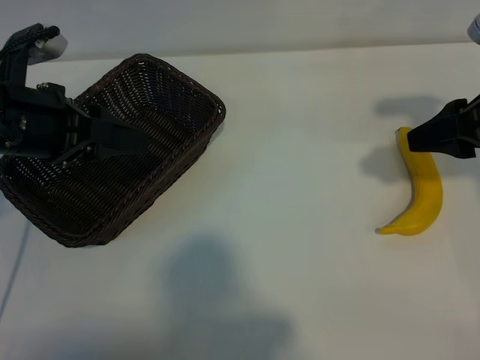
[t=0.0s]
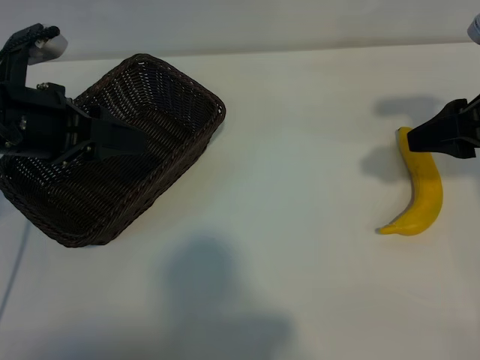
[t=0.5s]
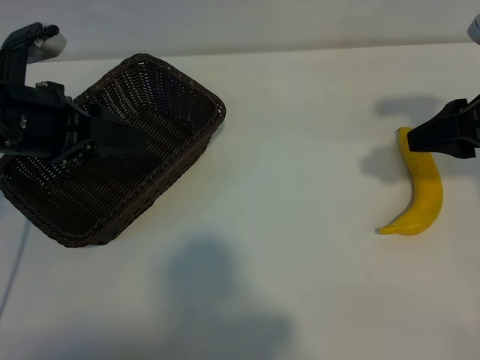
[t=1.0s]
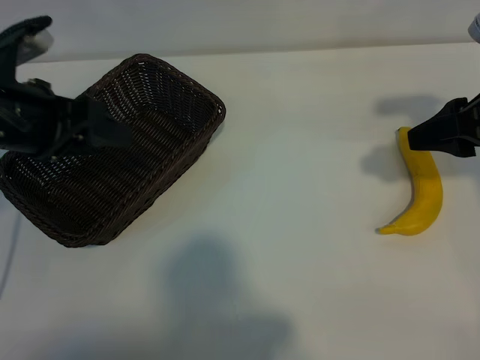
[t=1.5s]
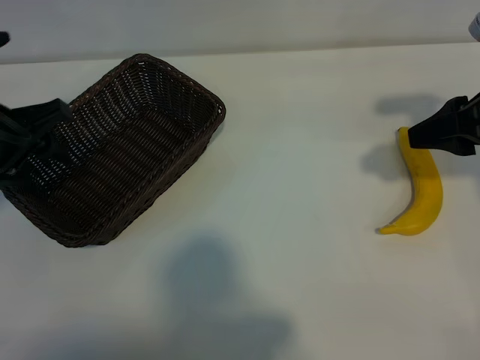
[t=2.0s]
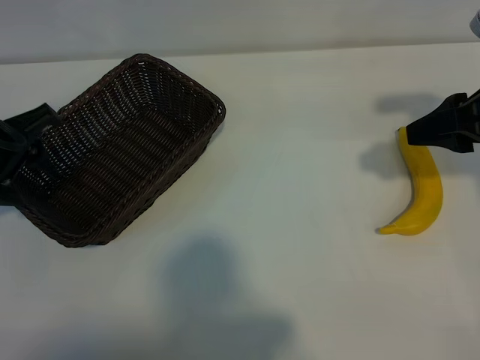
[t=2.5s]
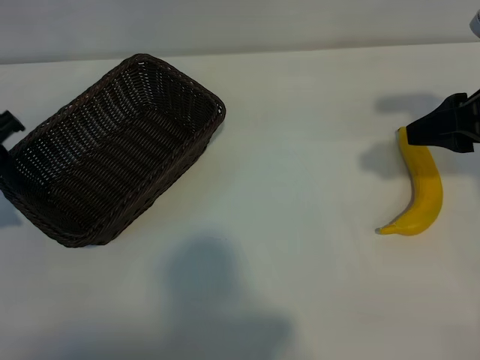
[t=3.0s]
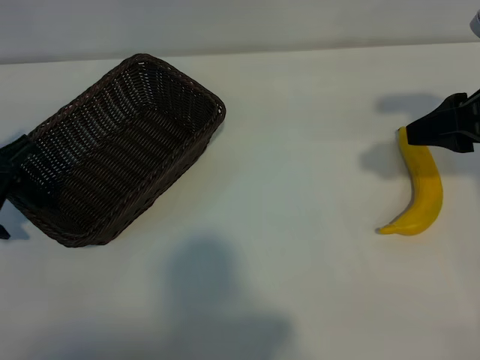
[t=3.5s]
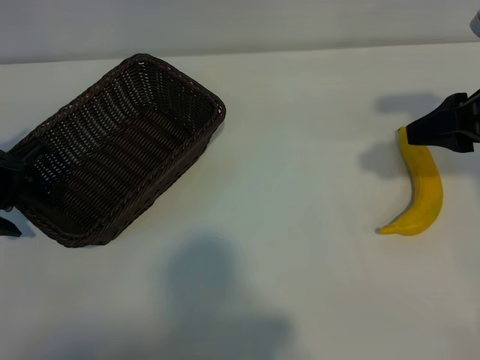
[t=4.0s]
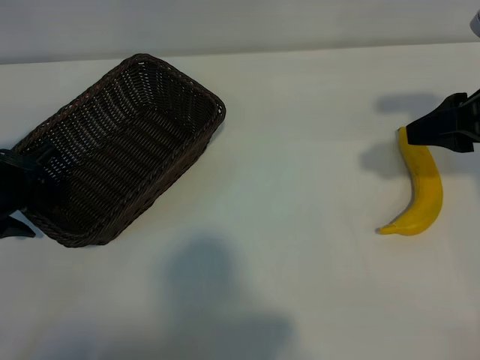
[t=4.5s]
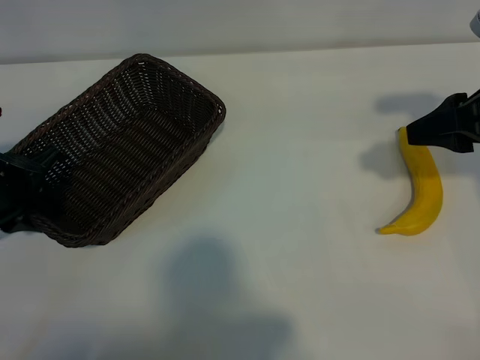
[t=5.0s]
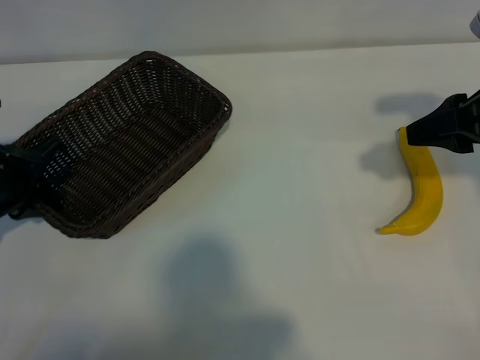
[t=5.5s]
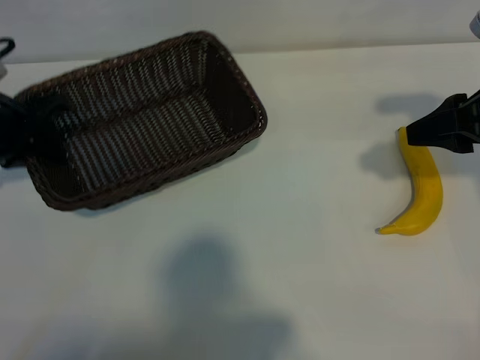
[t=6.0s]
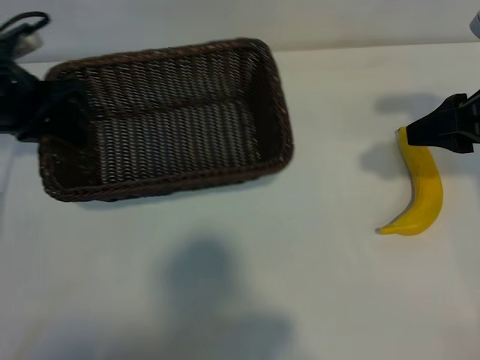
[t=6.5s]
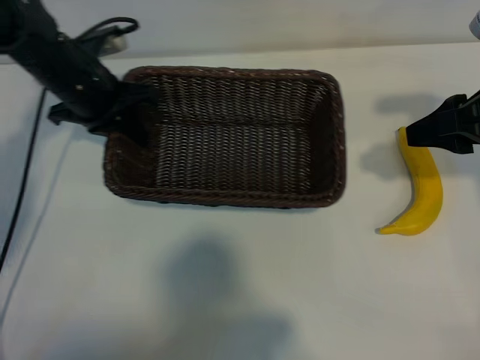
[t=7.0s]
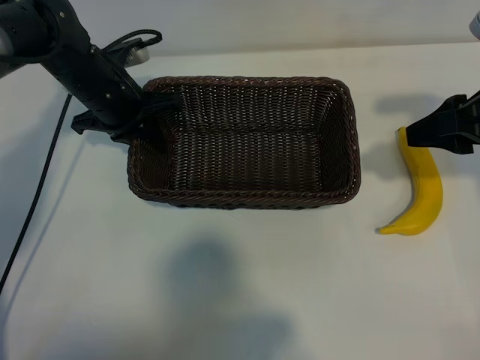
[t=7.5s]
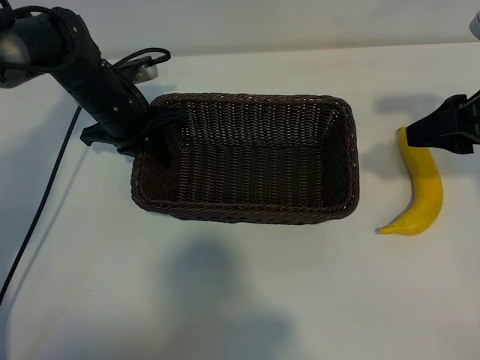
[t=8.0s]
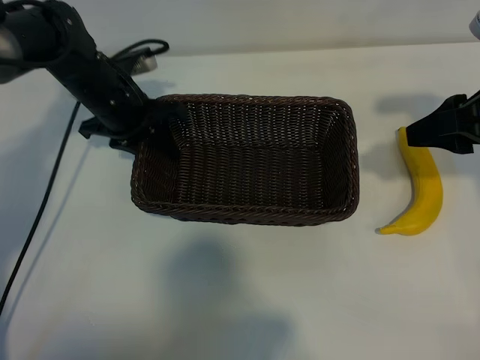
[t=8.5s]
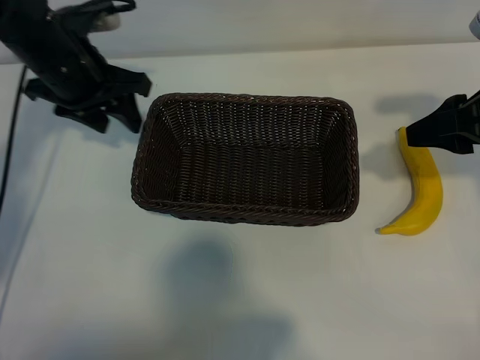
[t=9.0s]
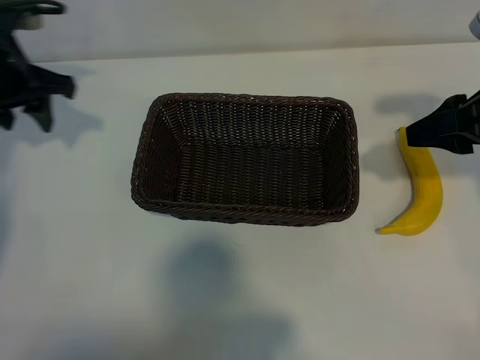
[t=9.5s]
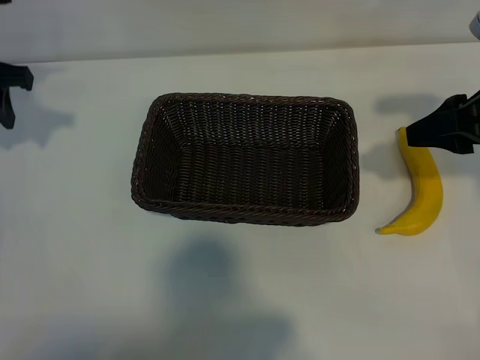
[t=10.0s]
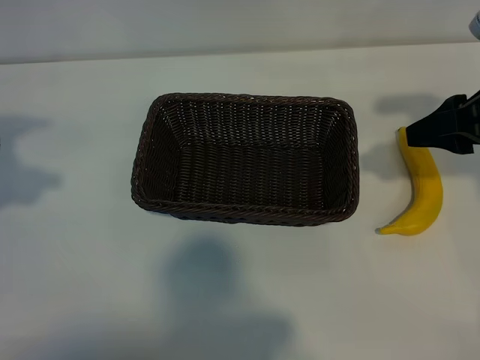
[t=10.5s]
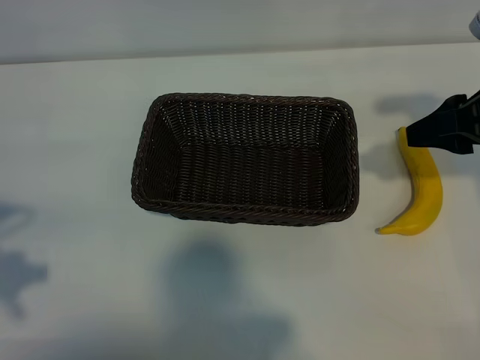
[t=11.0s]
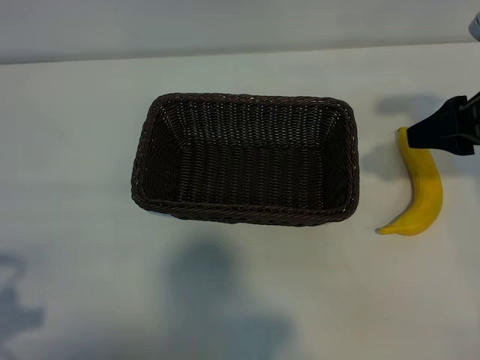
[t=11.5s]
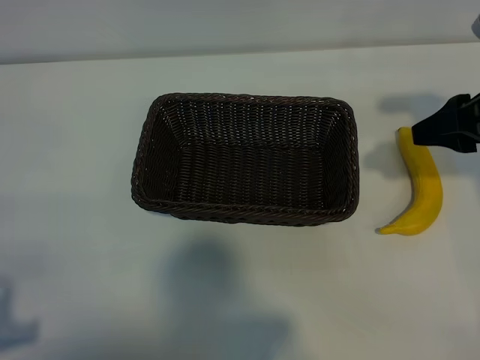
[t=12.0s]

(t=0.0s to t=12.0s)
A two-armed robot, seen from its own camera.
Task of the whole recording: pick up the banana and put it into the basket.
Step, t=1.0s - t=5.0s: Grasp the basket with the left gripper.
Step, t=5.5s - t=8.5s: Place the basket in the center of the table with the left gripper.

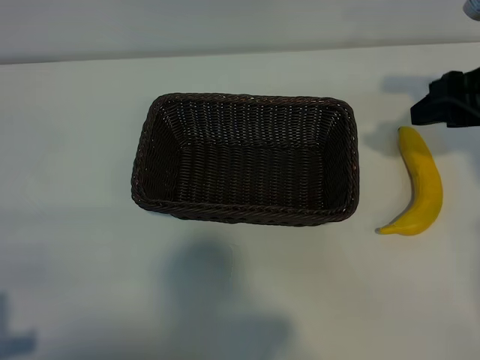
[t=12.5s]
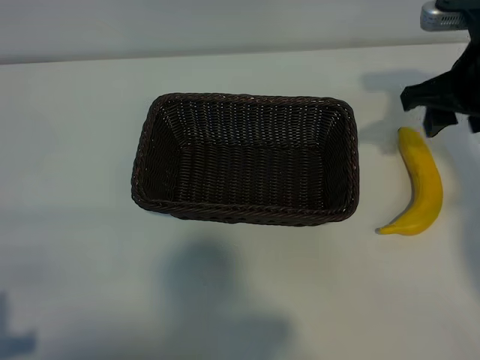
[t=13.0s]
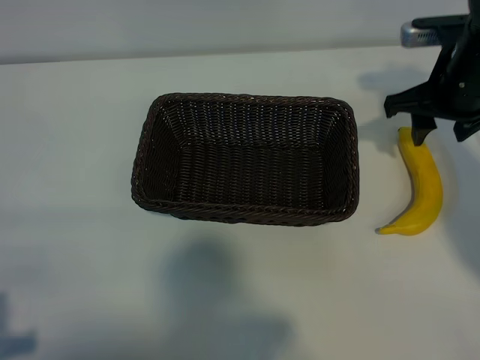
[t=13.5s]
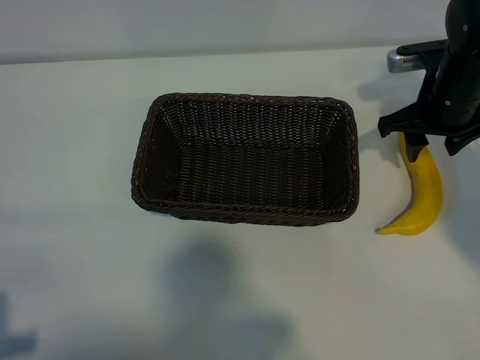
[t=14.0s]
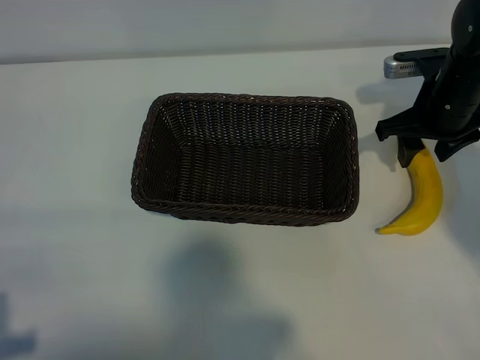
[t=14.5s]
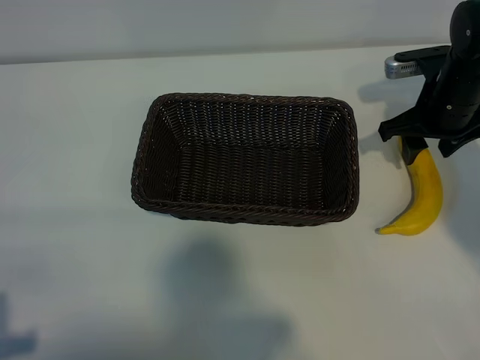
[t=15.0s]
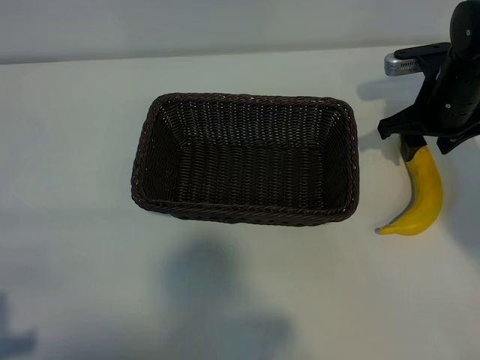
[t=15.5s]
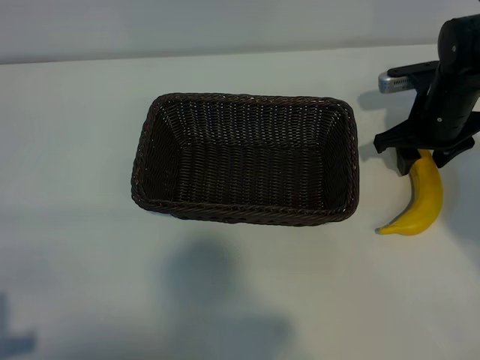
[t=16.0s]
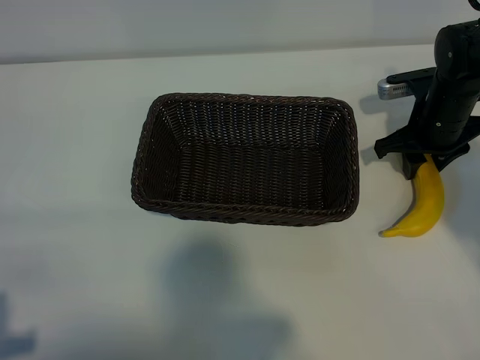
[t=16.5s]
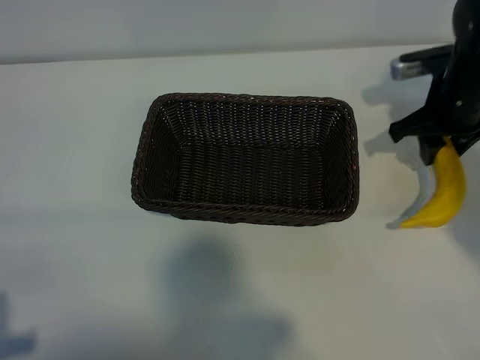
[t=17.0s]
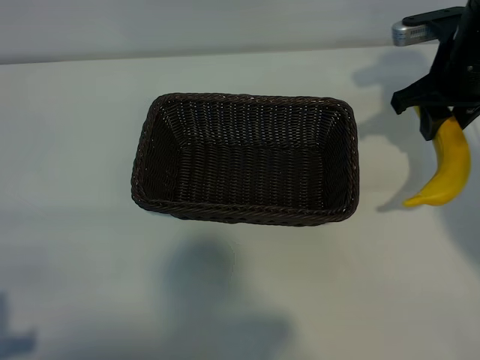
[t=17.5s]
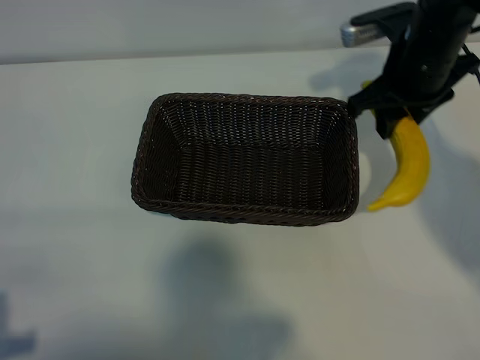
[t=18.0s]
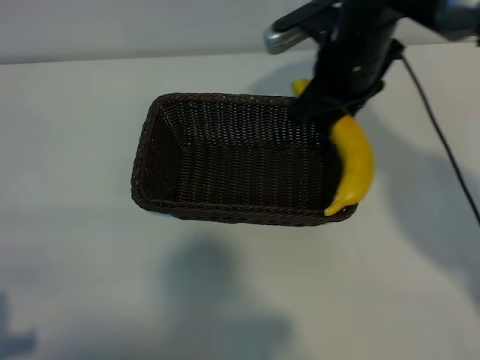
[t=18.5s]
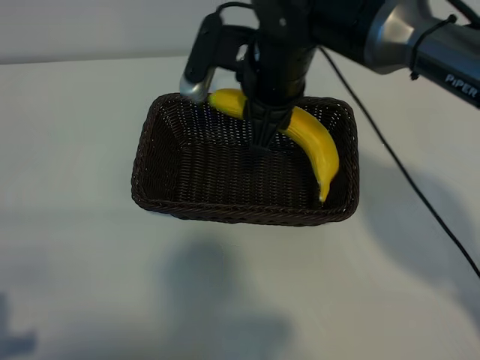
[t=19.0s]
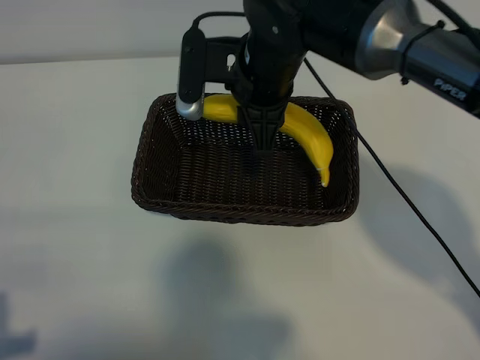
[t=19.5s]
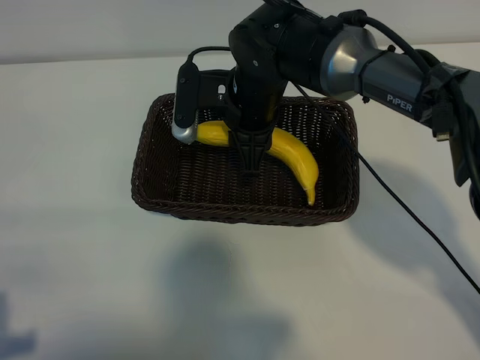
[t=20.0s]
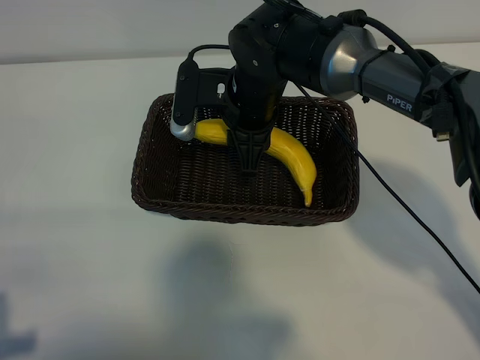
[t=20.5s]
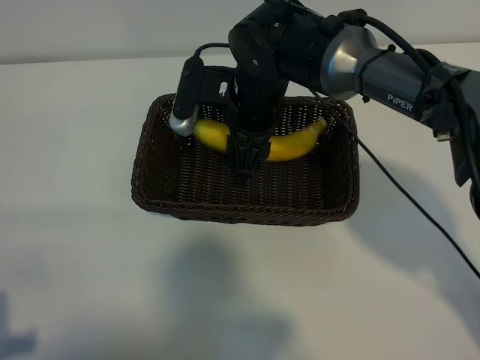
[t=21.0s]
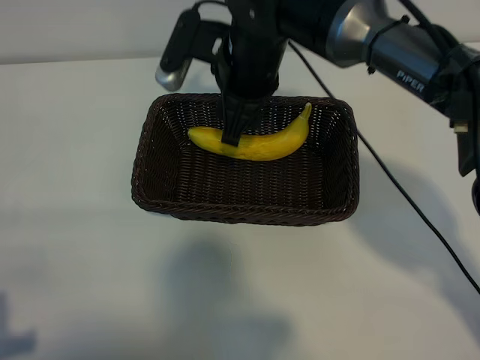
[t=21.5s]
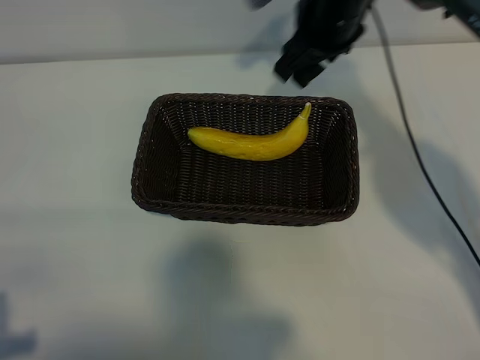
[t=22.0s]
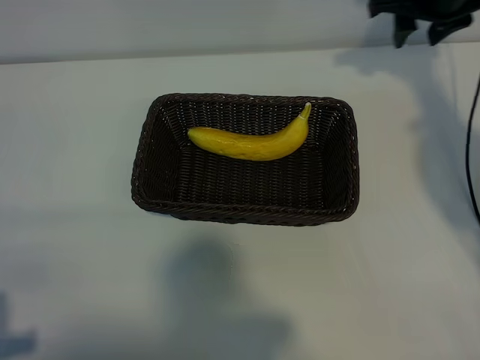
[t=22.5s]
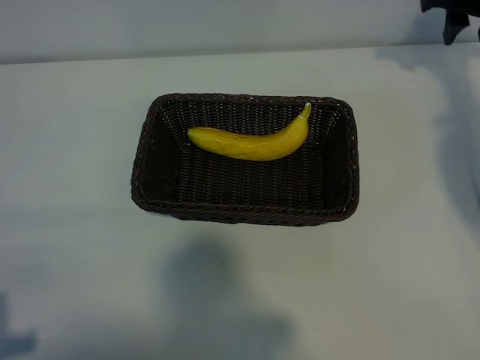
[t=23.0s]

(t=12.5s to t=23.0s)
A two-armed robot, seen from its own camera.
Task of the whole recording: pick up the banana and put it into the basket.
Step, t=12.5s - t=16.0s: Grasp the banana with right gripper.
Step, t=17.0s - t=21.0s: Place the banana in the basket with right gripper.
